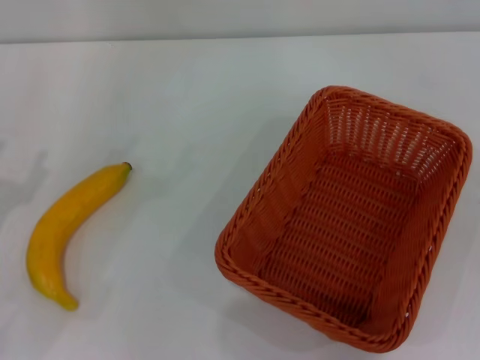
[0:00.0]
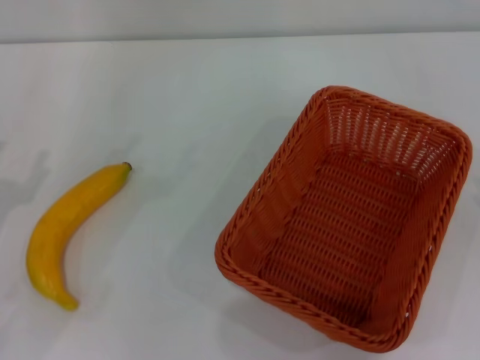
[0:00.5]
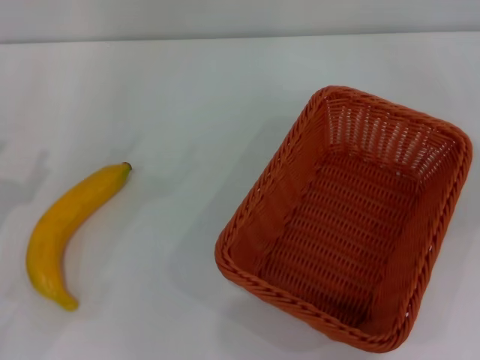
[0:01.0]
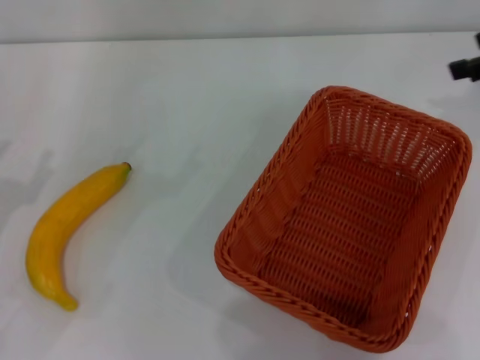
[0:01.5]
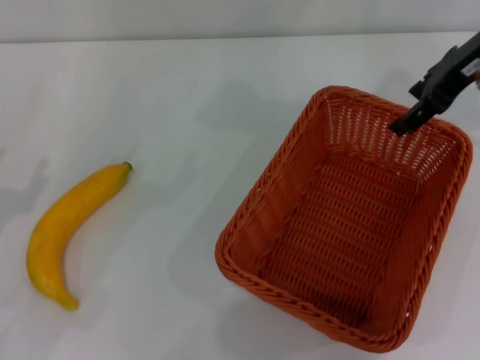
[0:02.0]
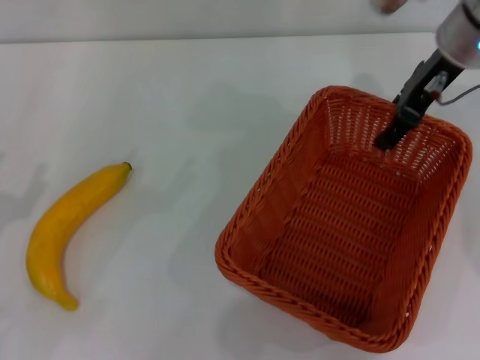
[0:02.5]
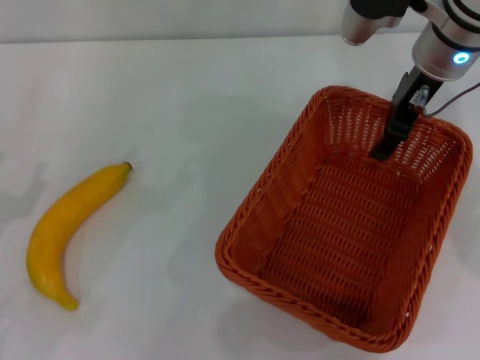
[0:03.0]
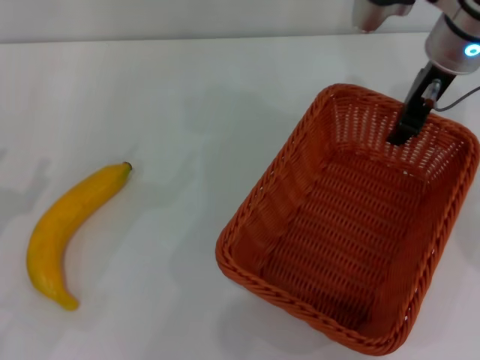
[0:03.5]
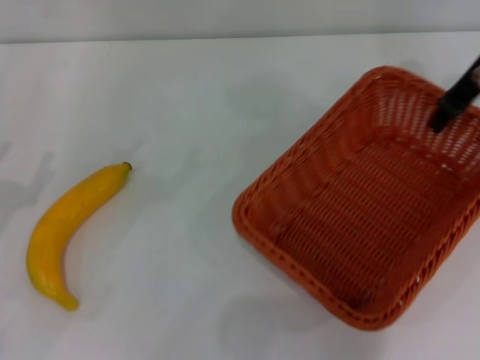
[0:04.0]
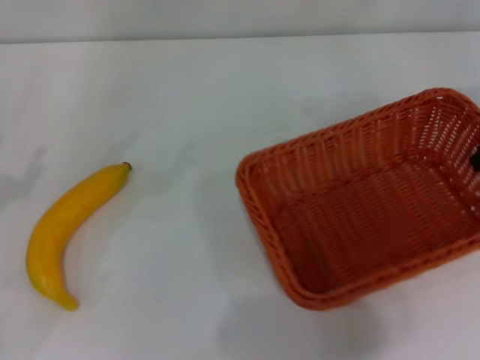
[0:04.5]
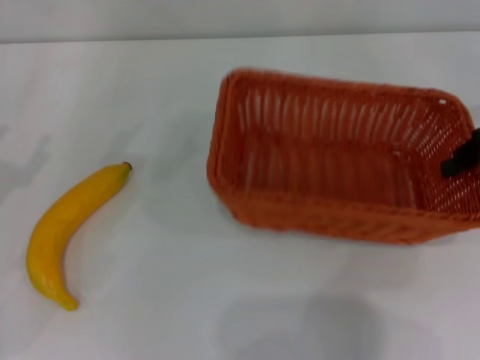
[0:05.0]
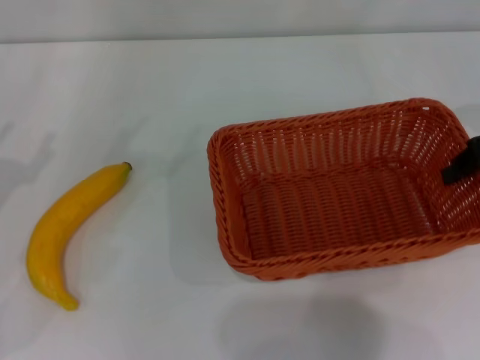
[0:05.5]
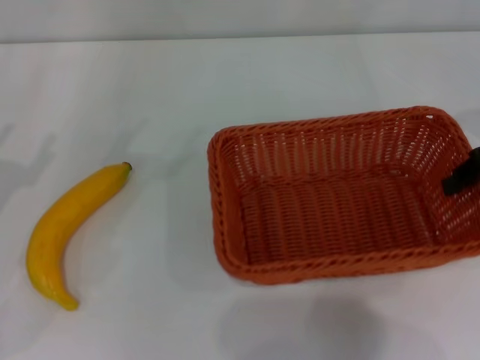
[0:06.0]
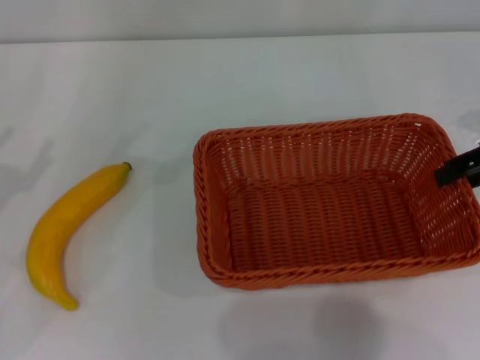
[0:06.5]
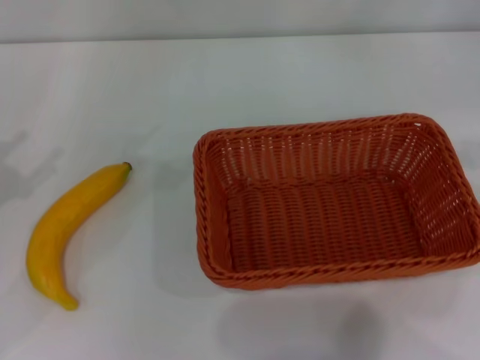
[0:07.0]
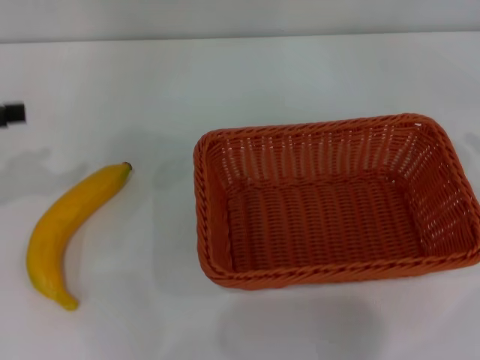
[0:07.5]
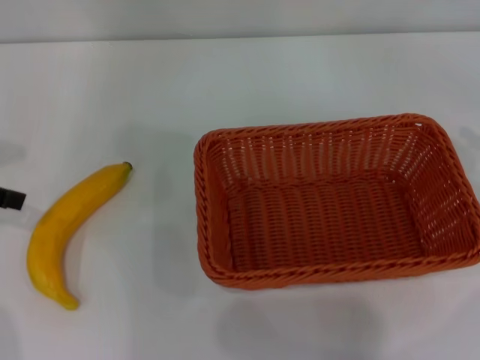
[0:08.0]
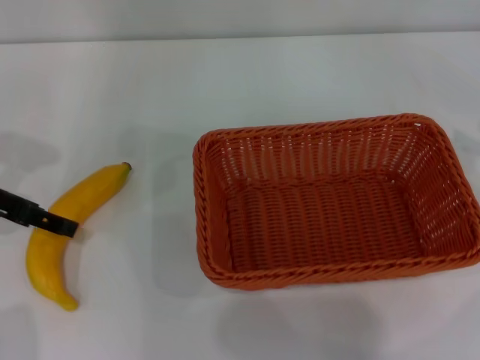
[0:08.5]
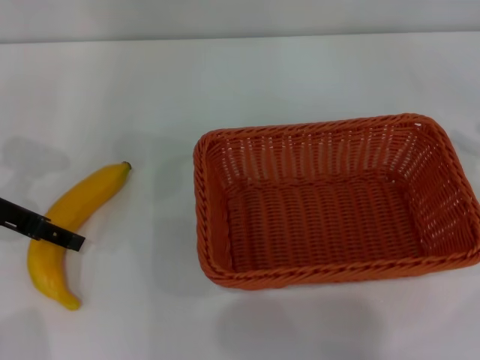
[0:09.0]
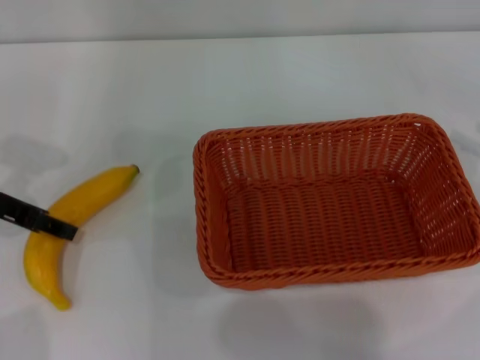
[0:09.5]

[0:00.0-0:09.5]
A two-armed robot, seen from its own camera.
Step, 0:00.0 to 0:03.5: Pick up the light basket with the right gripper.
Step, 0:04.0 to 0:06.5: Place the light basket in the center of view with the right gripper.
0:00.0 to 0:02.0: The right gripper is displaced forward, to the left and upward by about 35 cm.
0:02.0 to 0:04.0: The right gripper reaches about 5 cm to the left, then returns, and closes up.
0:04.0 to 0:05.5: The right gripper heads backward and to the right, covering approximately 10 cm.
0:05.5 to 0:07.5: The left gripper travels upward by approximately 10 cm. The right gripper heads to the right and backward, covering about 15 cm, and opens.
0:07.5 to 0:09.5: The left gripper is displaced downward and to the right by roughly 10 cm.

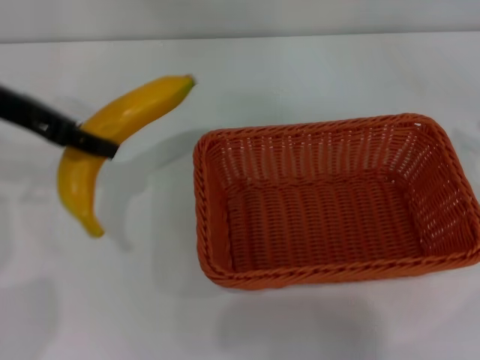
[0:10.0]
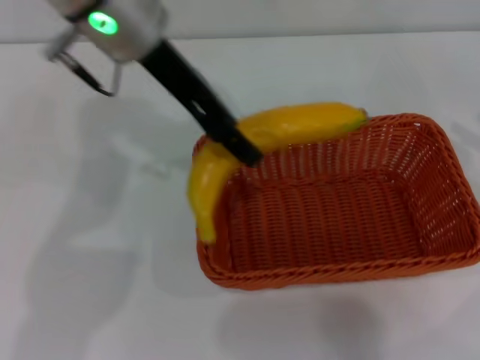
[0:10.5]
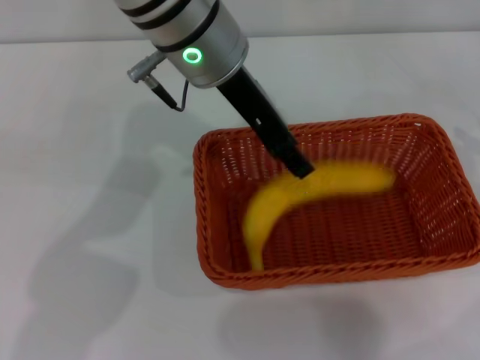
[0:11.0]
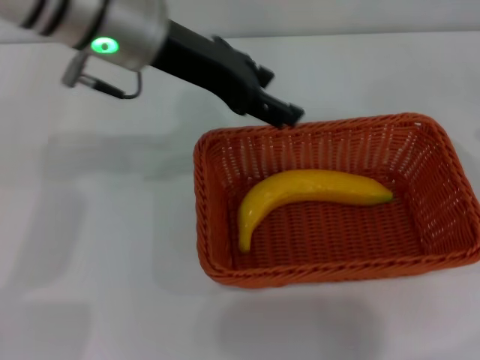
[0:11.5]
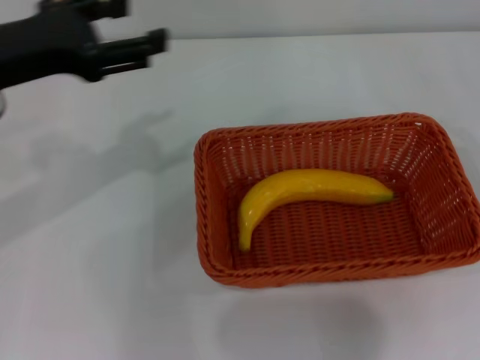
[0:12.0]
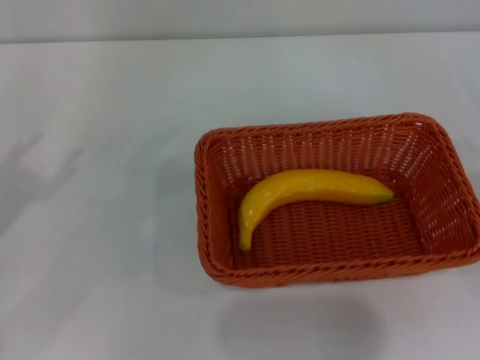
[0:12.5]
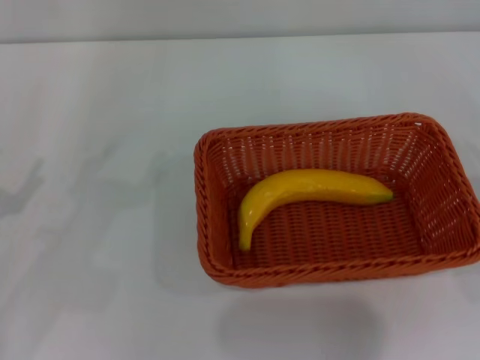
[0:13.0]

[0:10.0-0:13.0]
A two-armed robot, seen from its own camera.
Step, 0:10.5 to 0:11.0: Place the banana into the light basket with the left gripper.
0:10.0 to 0:11.5: The left gripper heads to the right, covering roughly 15 cm, and opens its fingers.
0:11.5 to 0:13.0: The left gripper heads to the left, downward and backward, covering approximately 35 cm. Meanwhile the right gripper heads downward and backward, covering approximately 10 cm.

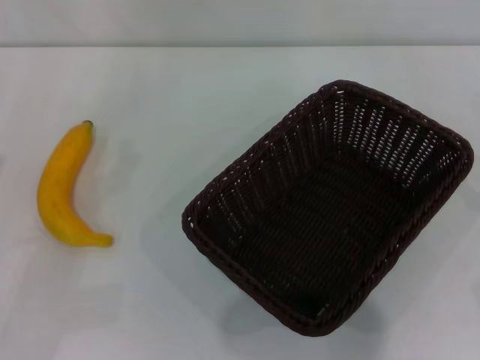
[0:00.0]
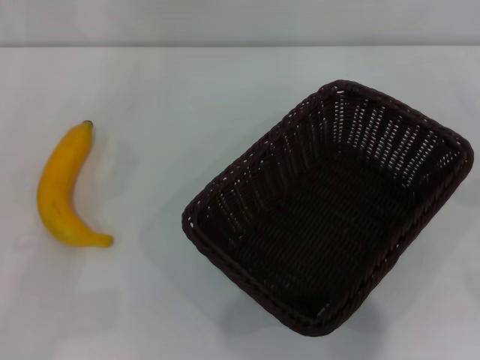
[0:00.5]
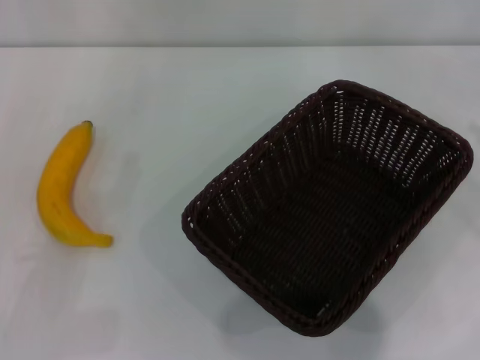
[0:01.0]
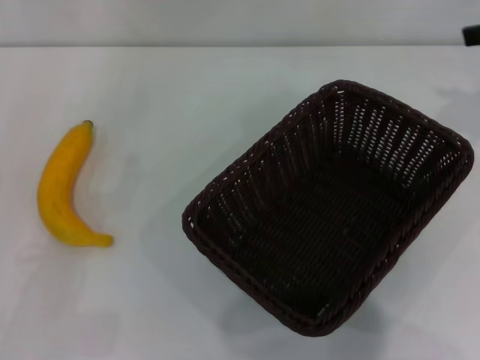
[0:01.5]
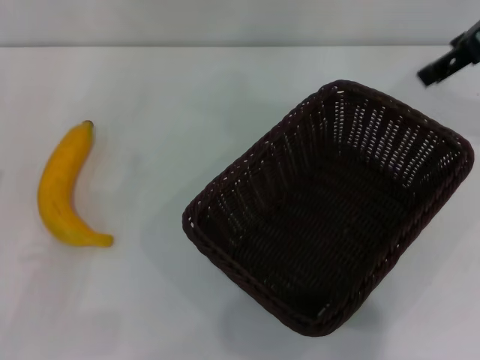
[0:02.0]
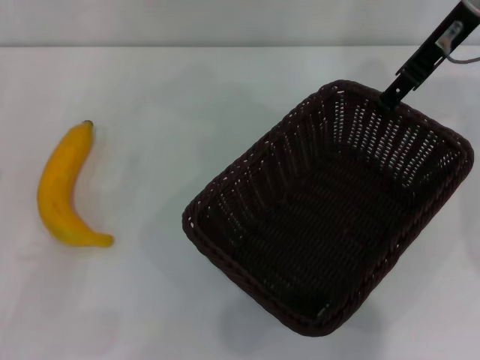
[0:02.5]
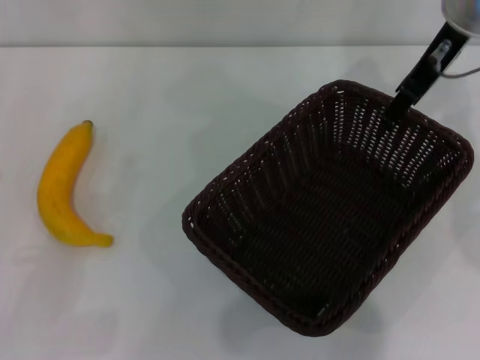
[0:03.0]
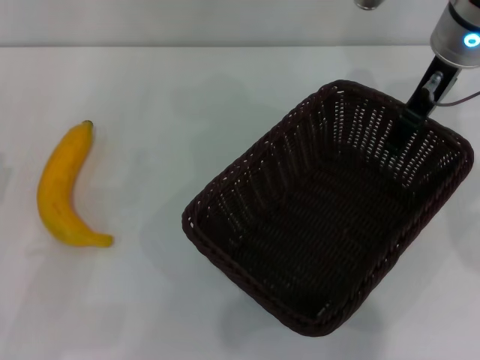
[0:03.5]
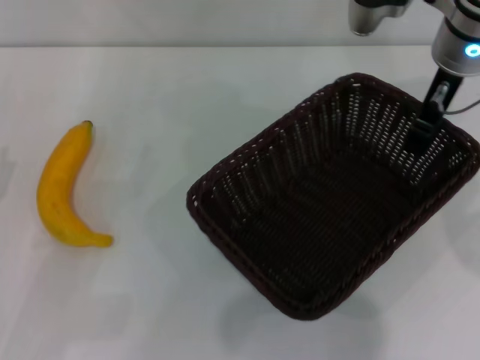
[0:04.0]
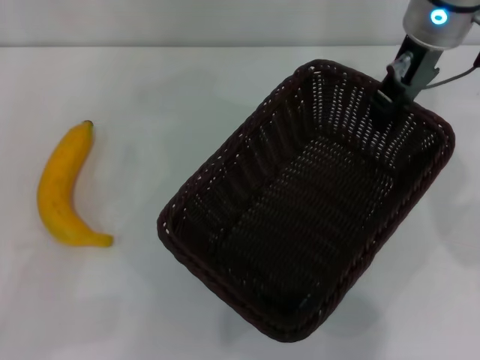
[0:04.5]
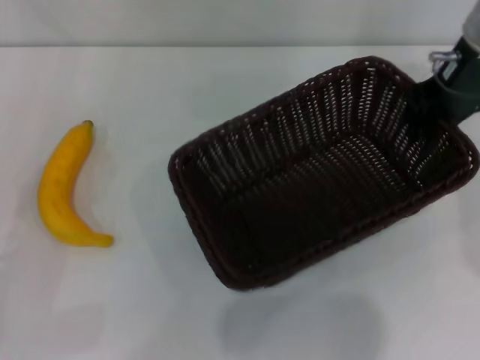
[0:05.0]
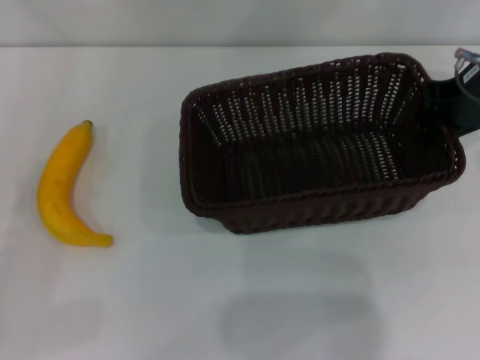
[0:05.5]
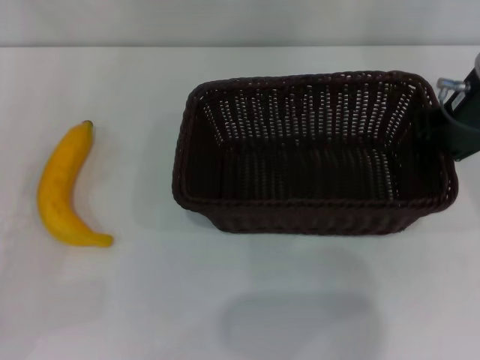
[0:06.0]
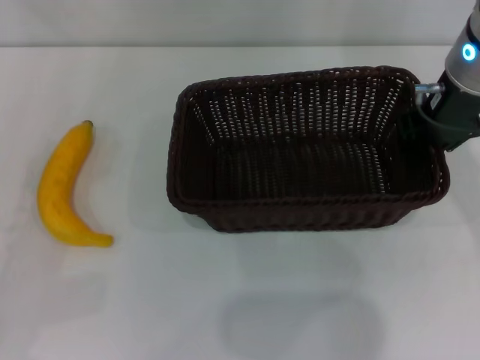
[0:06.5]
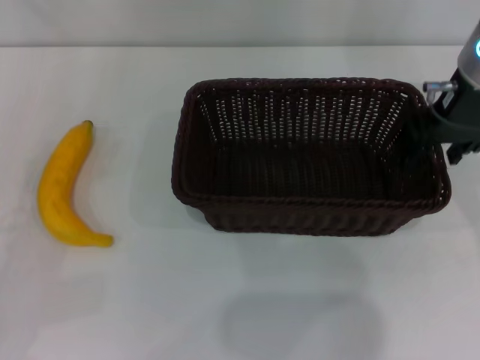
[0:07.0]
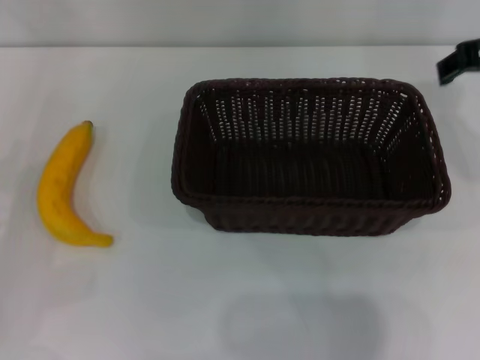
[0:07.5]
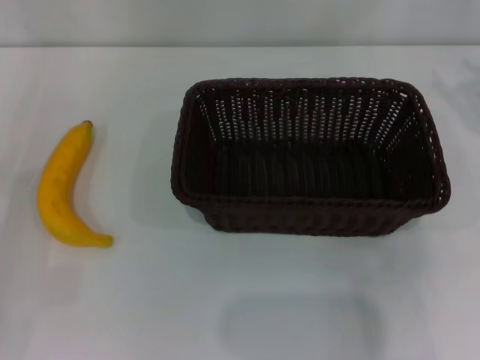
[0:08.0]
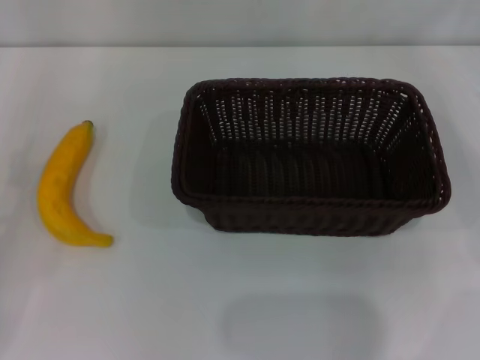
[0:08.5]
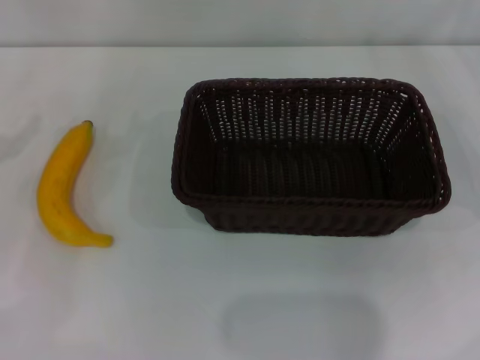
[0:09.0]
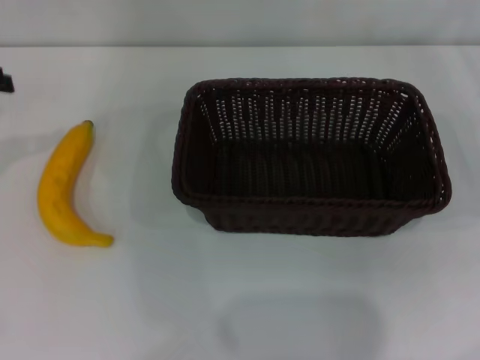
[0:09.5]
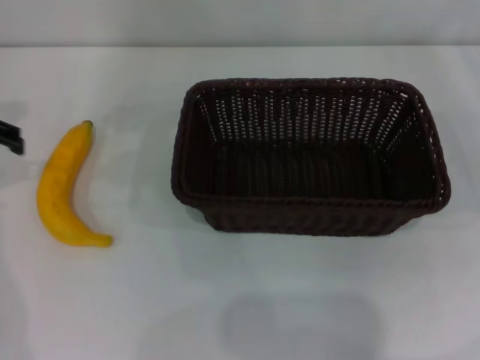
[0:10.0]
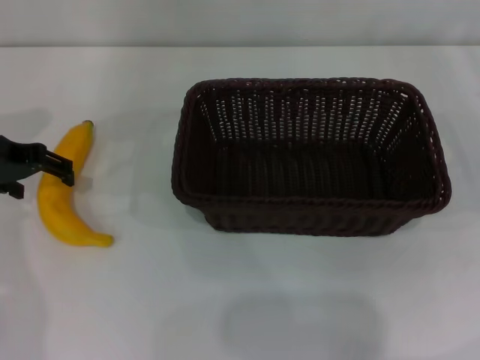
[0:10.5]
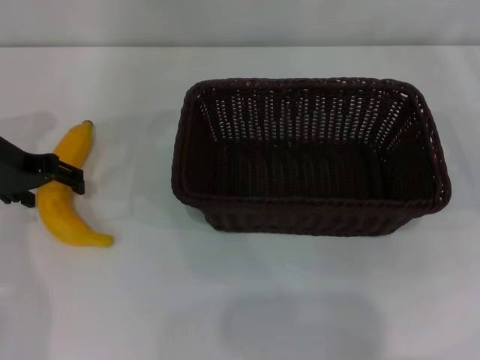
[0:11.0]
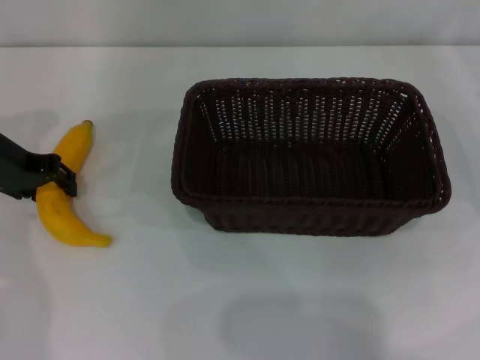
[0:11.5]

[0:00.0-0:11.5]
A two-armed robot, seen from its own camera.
Step, 0:00.0 to 0:04.5: Pick up the dark basket with the right gripper.
Step, 0:05.0 to 0:07.0: Place the dark basket in the center of view with the right gripper.
0:00.0 to 0:02.0: The right gripper is displaced upward, forward and to the left by some 35 cm.
0:02.0 to 0:04.0: The right gripper is displaced to the left and downward by roughly 10 cm.
0:04.0 to 0:06.0: The left gripper shifts about 5 cm to the left. The right gripper ends up approximately 5 cm from where it was, and closes.
0:06.0 to 0:07.5: The right gripper shifts by some 5 cm, and opens.
0:07.5 to 0:09.5: The right gripper shifts approximately 25 cm to the right and downward.
0:09.5 to 0:11.5: The left gripper travels downward and to the right by about 10 cm, and closes its fingers.

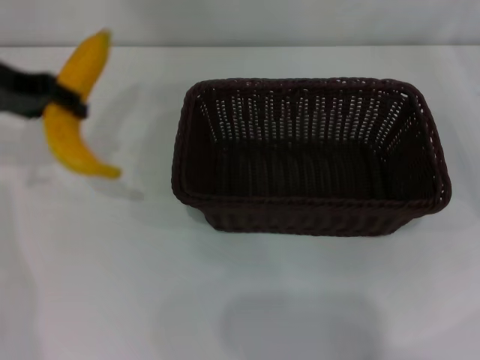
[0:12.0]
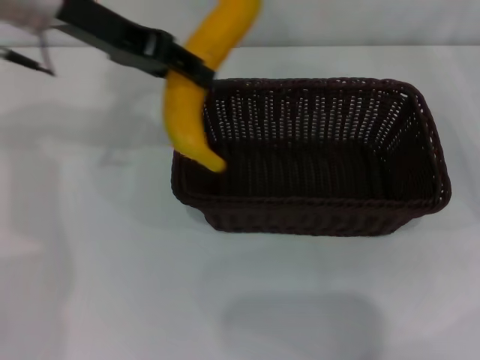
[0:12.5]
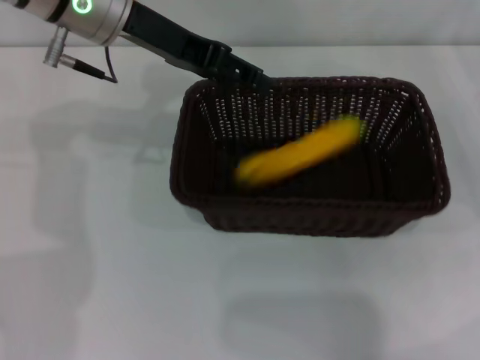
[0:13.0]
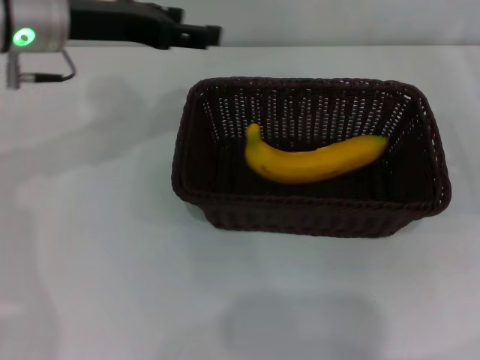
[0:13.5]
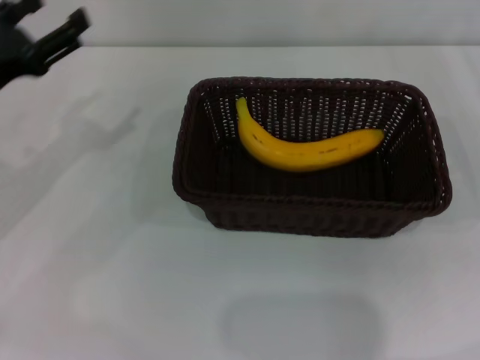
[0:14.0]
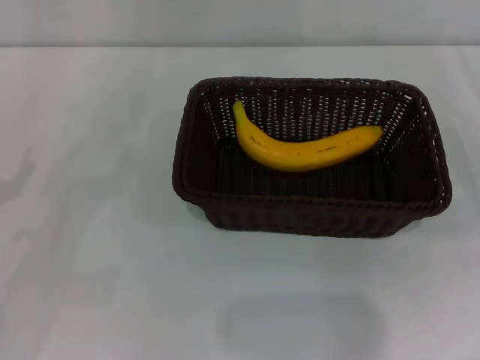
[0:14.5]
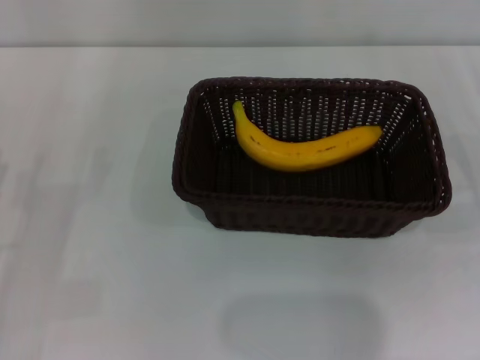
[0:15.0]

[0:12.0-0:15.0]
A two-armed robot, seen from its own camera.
Step, 0:12.0 to 0:13.0: Place the banana into the dark basket with the left gripper.
0:12.0 to 0:13.5: The left gripper heads to the right, covering some 5 cm, and opens up.
0:13.5 to 0:15.0: The left gripper moves backward, downward and to the left, approximately 30 cm.
